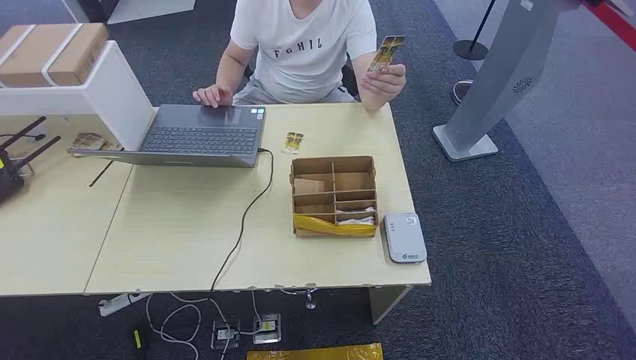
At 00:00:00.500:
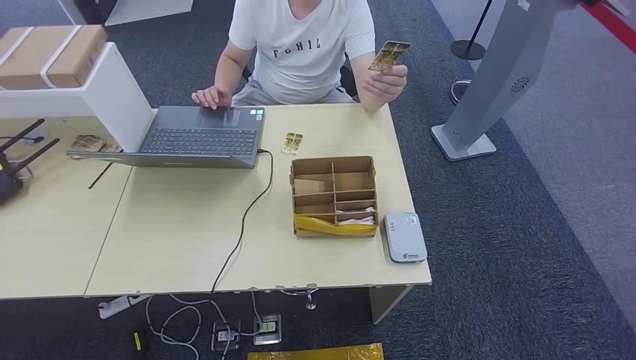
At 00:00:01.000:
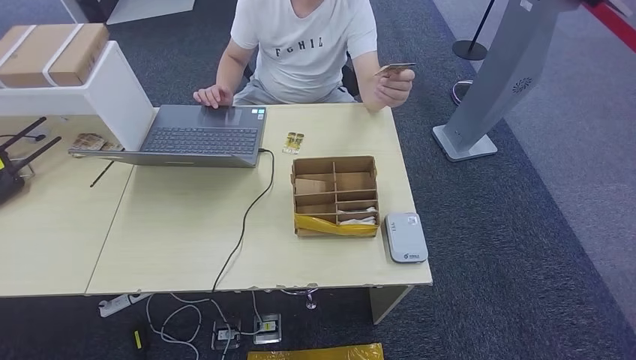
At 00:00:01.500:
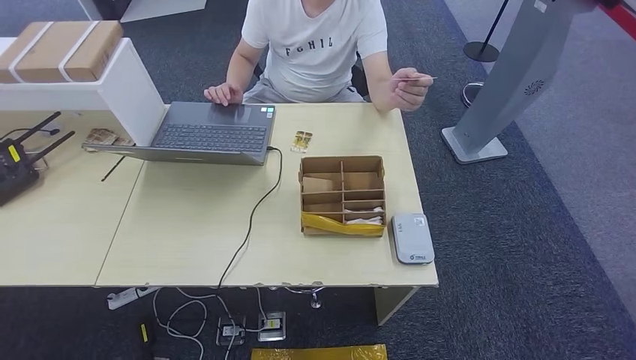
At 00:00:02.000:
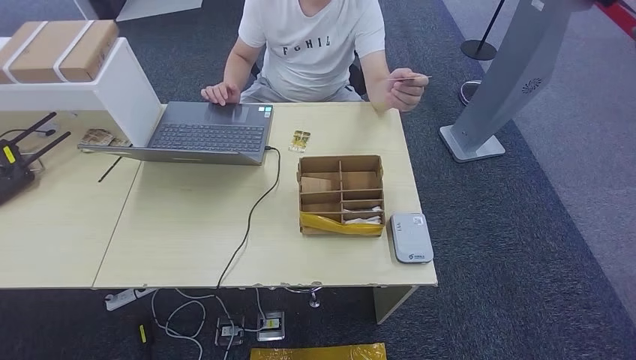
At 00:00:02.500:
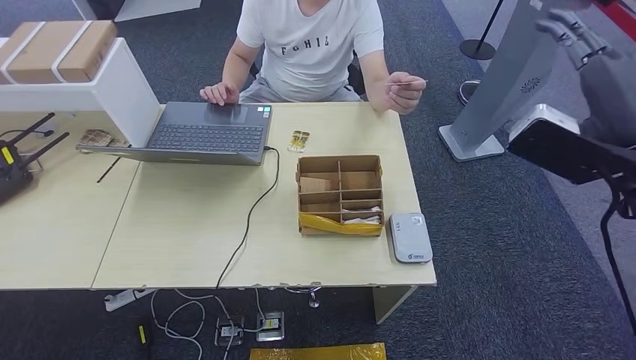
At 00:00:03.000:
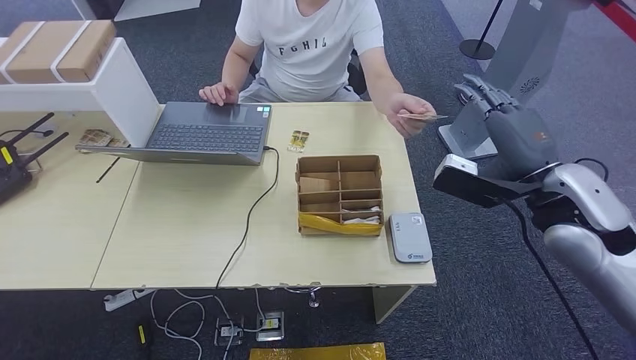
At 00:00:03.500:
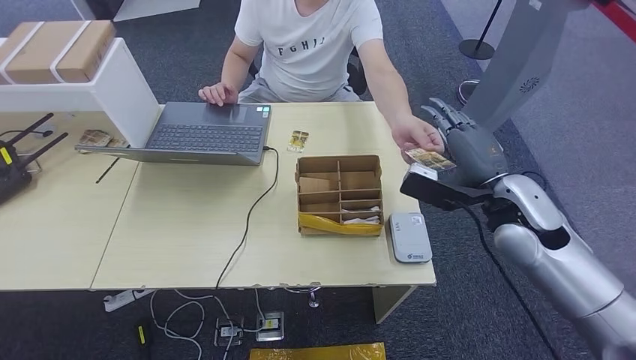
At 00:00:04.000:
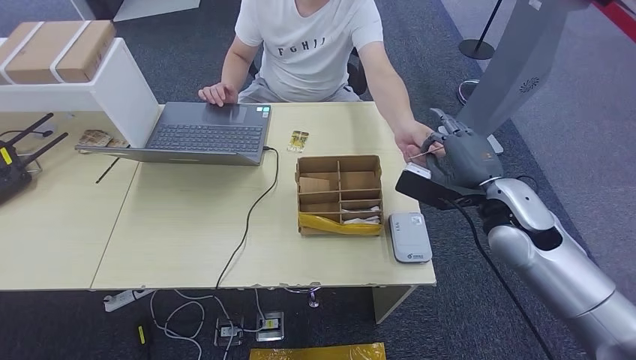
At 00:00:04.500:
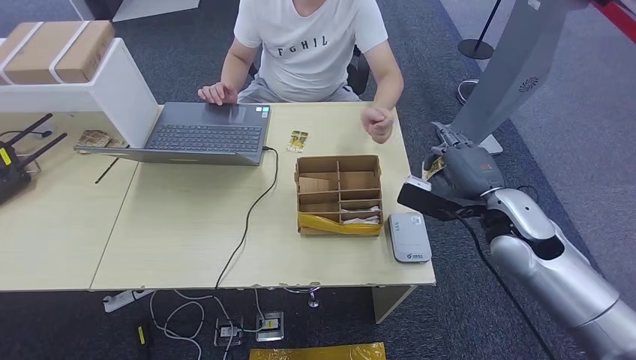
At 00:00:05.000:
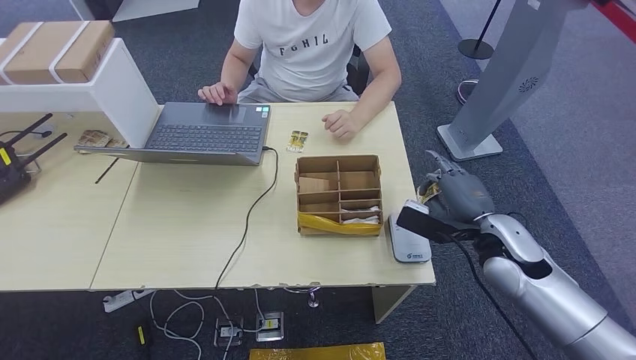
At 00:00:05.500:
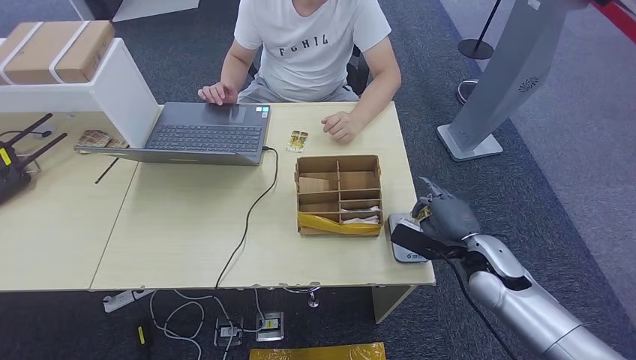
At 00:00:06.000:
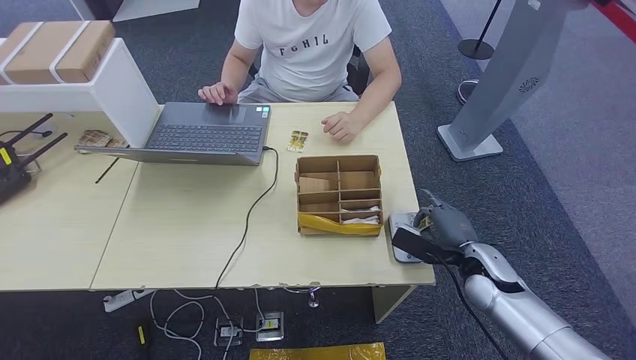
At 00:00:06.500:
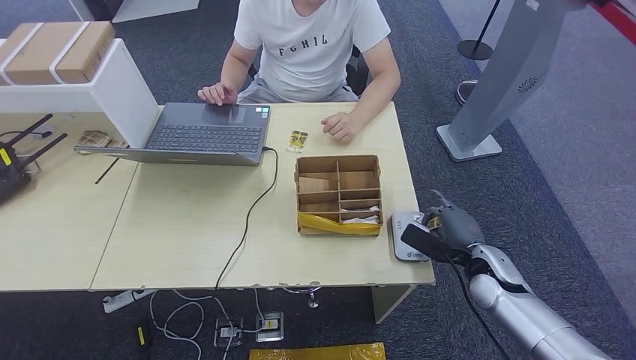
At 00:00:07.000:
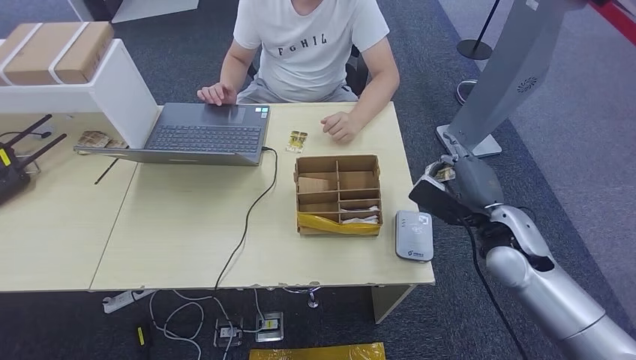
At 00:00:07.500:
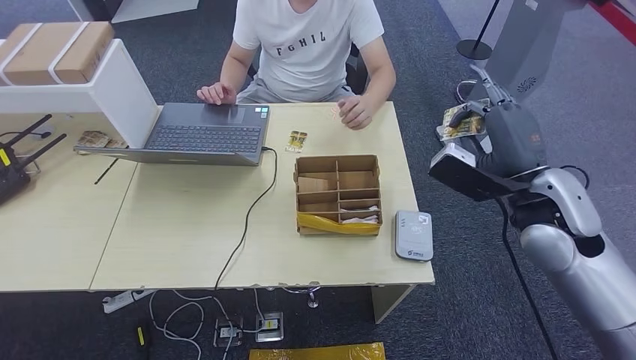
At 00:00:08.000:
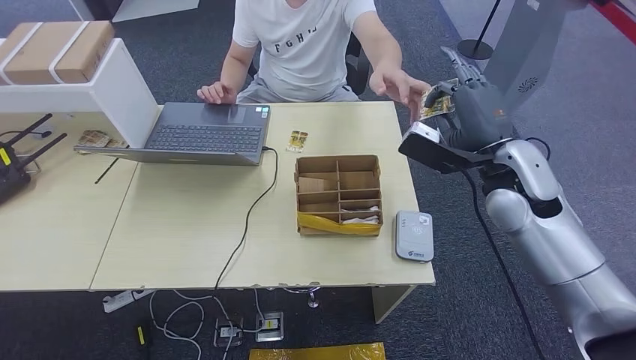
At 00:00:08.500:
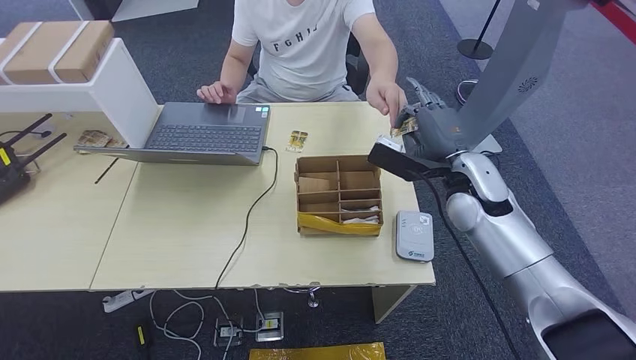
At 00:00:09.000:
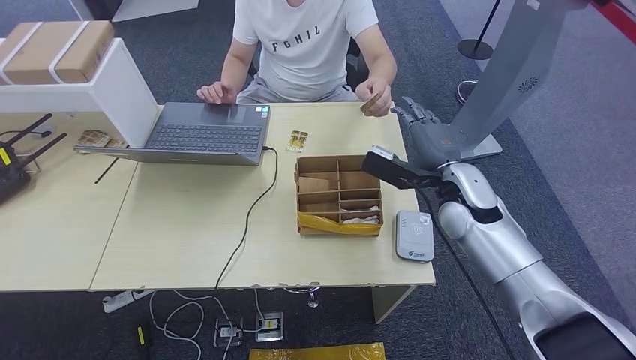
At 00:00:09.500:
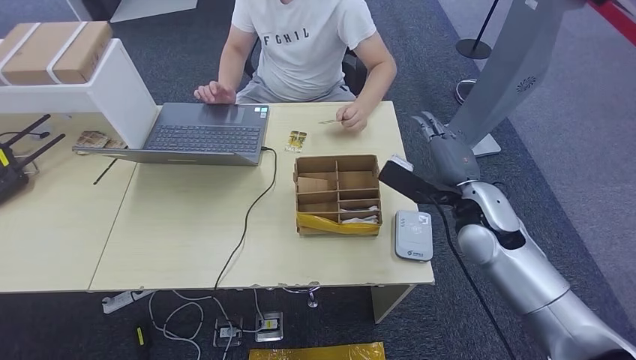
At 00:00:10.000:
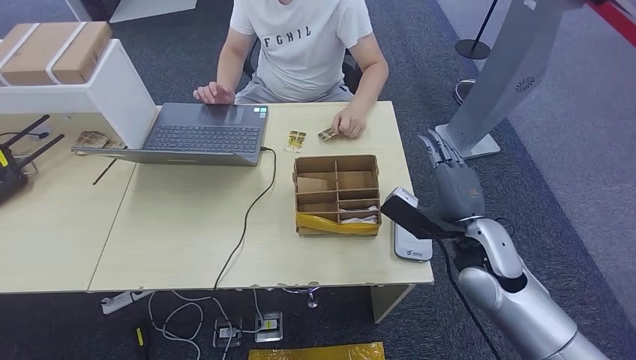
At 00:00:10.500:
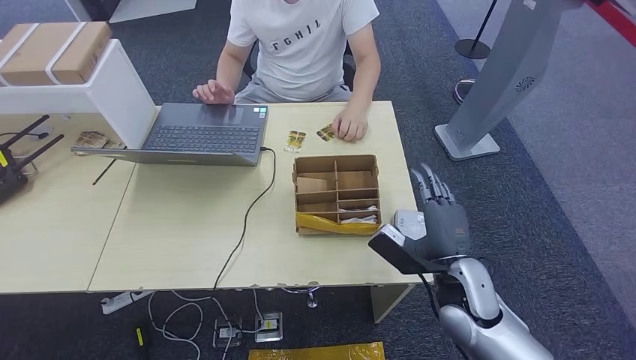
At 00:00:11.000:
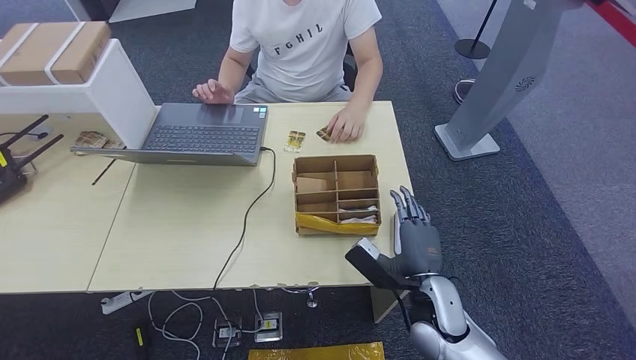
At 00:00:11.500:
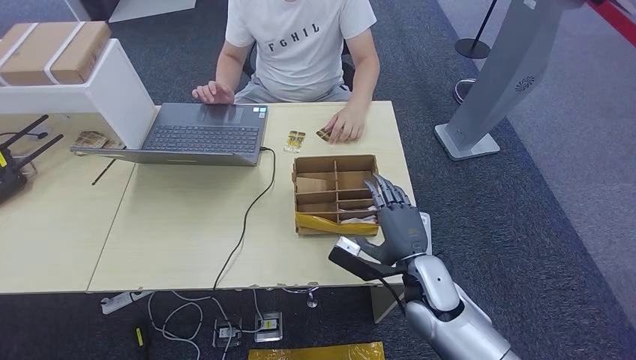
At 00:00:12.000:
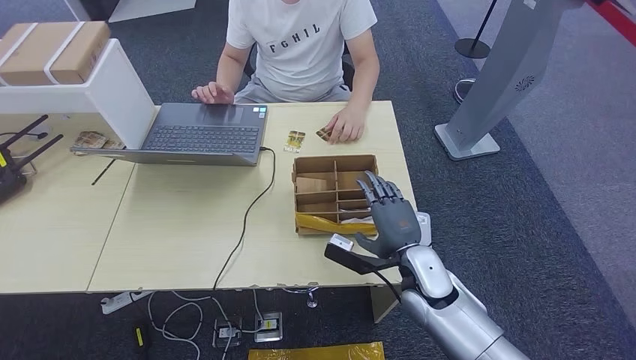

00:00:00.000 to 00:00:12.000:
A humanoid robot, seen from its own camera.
Step, 00:00:00.000 to 00:00:04.000: Take the ID card from the person's hand.
Step, 00:00:04.500 to 00:00:07.000: Place the ID card on the card reader.
Step, 00:00:07.500 to 00:00:09.500: Hand the ID card to the person.
00:00:02.000 to 00:00:04.000: The right hand moves downward and to the left, some 25 cm.
00:00:04.000 to 00:00:06.000: The right hand moves downward, roughly 15 cm.
00:00:06.000 to 00:00:08.000: The right hand is displaced upward and forward by some 20 cm.
00:00:08.000 to 00:00:10.000: The right hand moves downward and backward, some 15 cm.
00:00:10.000 to 00:00:12.000: The right hand travels to the left and downward by approximately 10 cm.

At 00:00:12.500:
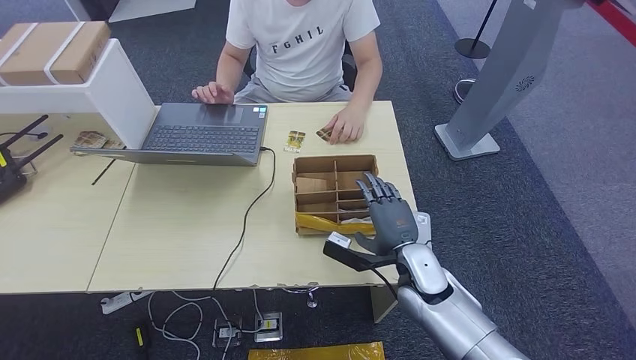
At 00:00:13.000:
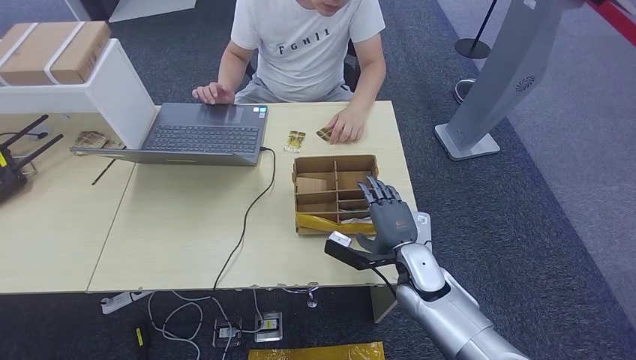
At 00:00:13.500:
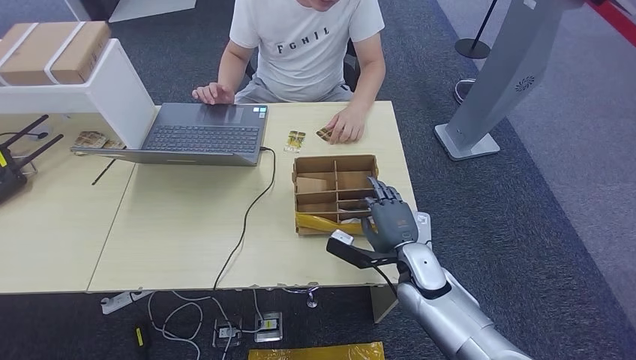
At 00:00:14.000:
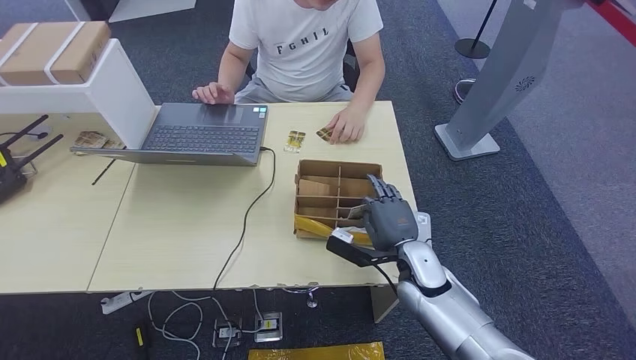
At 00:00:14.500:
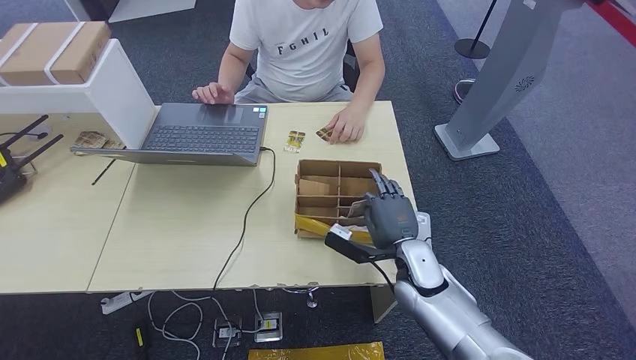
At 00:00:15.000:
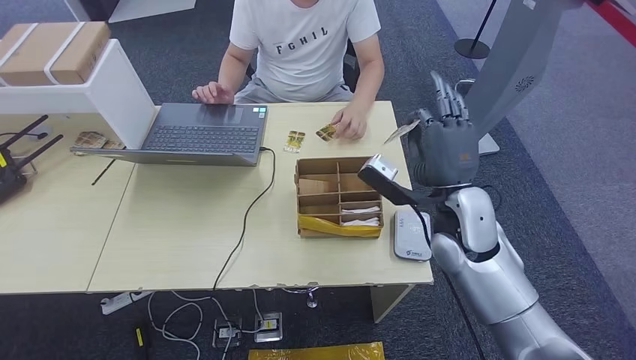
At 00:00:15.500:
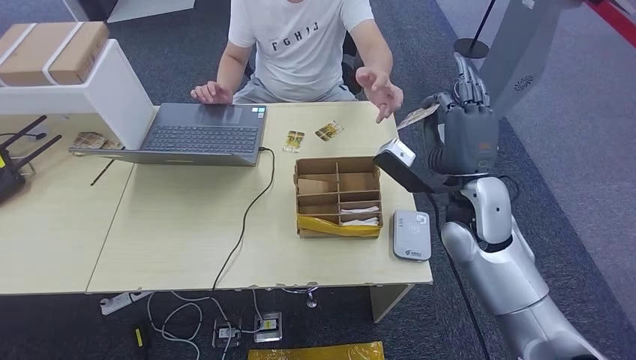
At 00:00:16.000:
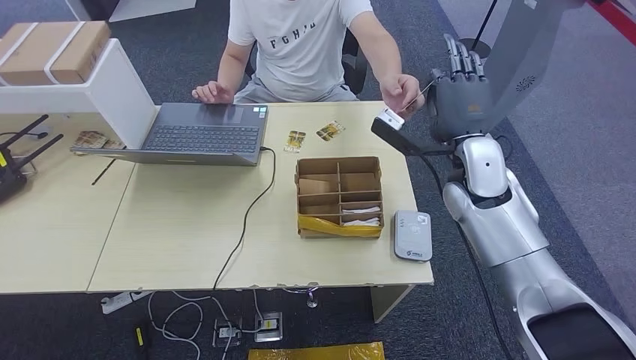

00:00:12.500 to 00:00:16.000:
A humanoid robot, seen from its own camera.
Step, 00:00:12.500 to 00:00:14.500: Pick up the room key from the key card box.
Step, 00:00:15.000 to 00:00:16.000: Hand the room key to the person.
00:00:12.500 to 00:00:14.500: There are only small adjustments of the hands.
00:00:14.500 to 00:00:16.000: The right hand moves upward and forward, approximately 20 cm.
